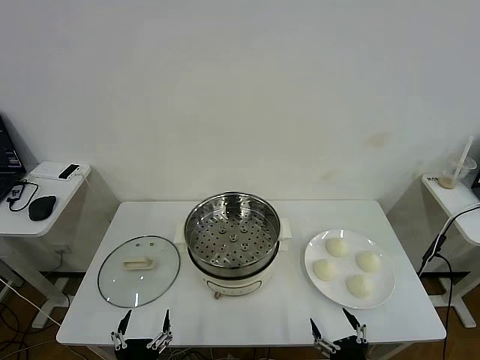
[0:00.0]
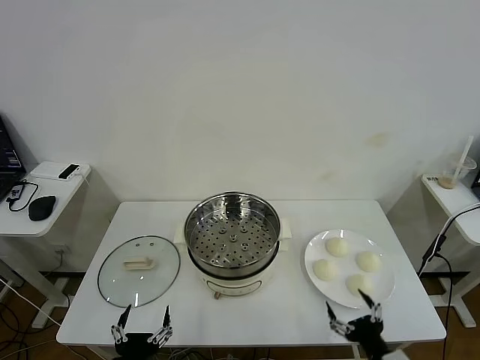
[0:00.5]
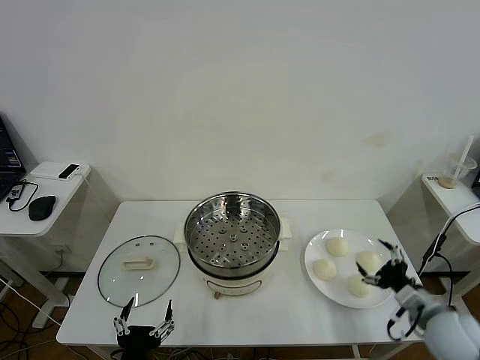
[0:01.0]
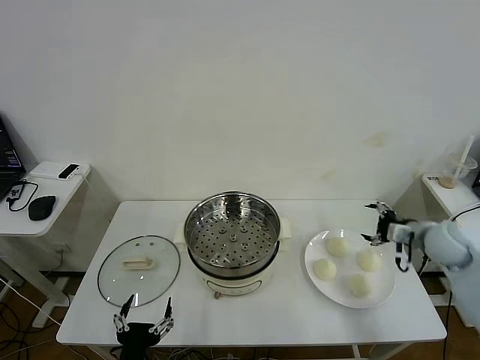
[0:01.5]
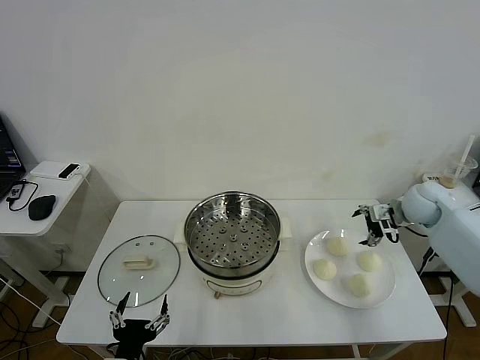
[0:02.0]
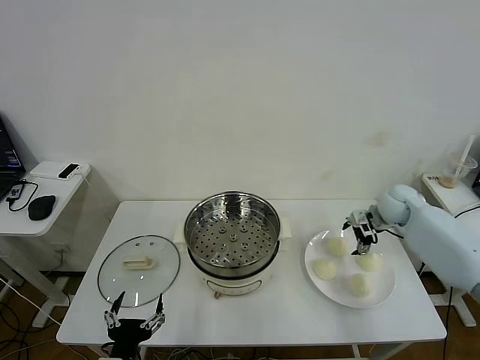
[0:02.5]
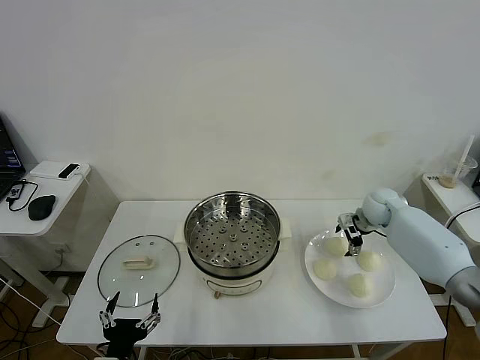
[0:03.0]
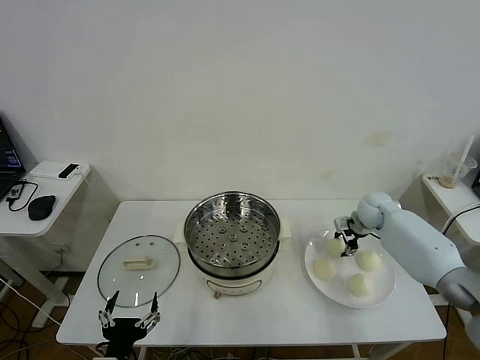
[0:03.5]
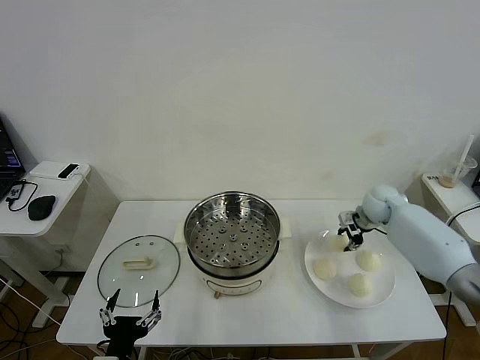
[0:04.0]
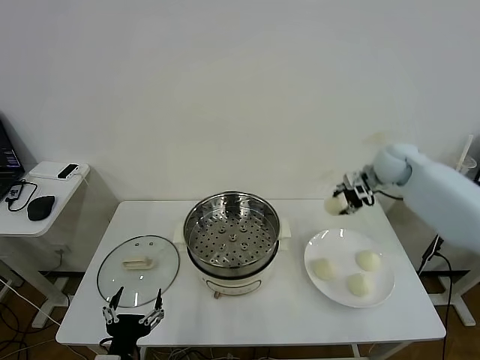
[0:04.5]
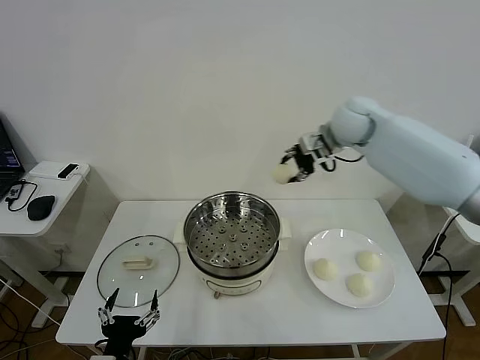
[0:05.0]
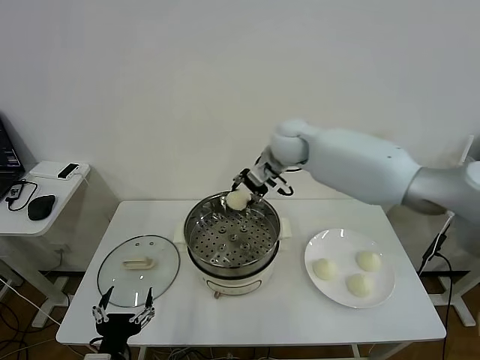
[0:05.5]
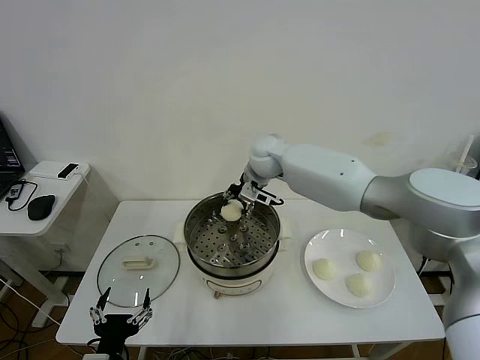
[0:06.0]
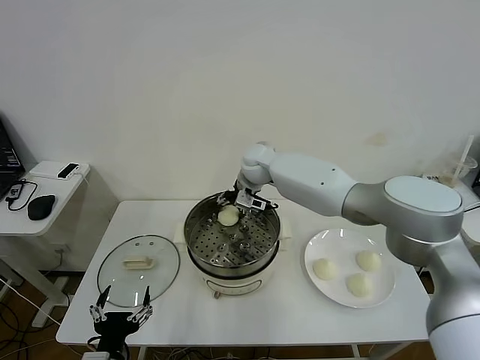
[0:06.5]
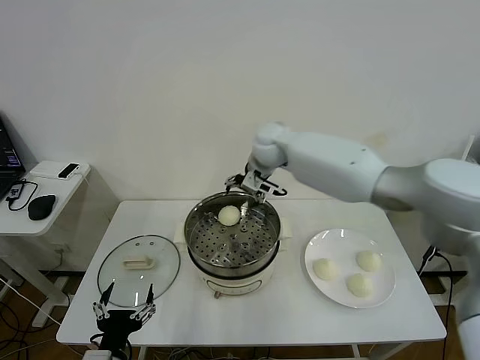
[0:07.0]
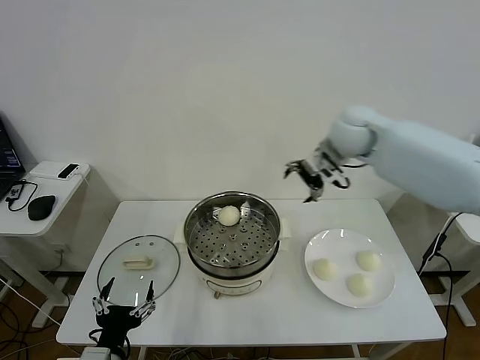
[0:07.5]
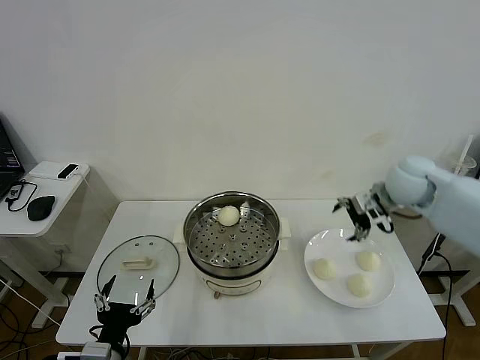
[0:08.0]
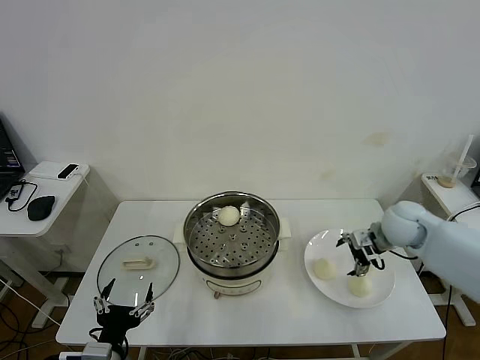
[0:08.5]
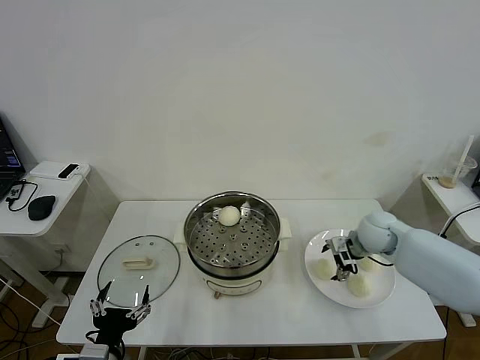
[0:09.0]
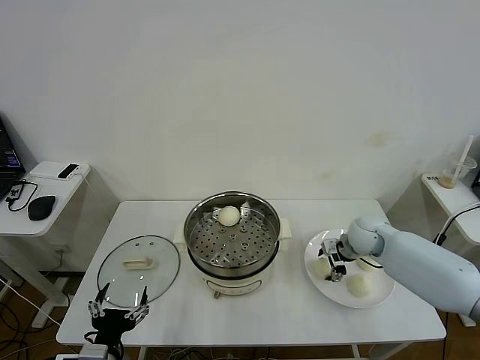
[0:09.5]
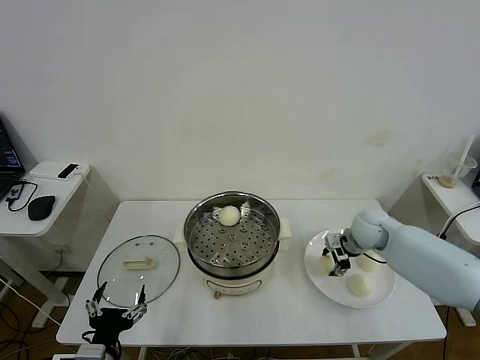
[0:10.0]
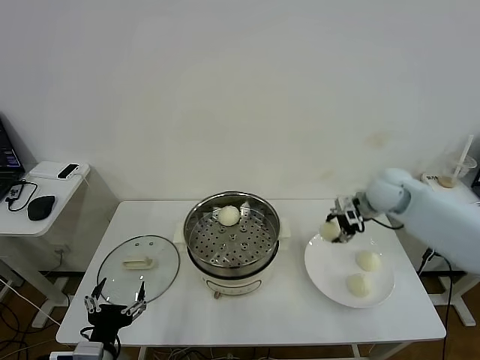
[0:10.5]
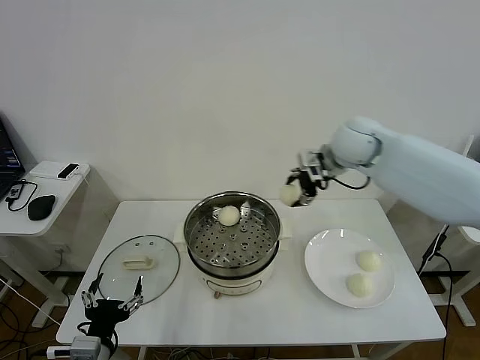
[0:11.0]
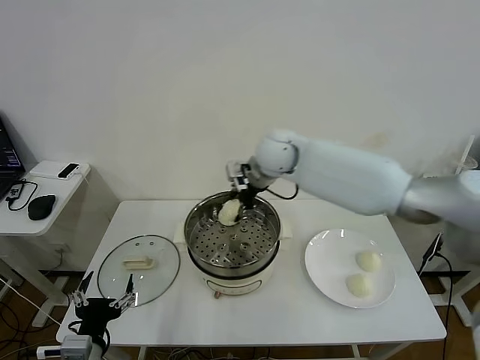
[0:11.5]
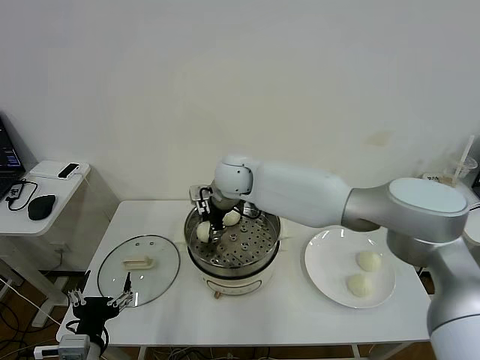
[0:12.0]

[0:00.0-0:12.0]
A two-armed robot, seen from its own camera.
Task of the whole recording: take steamed baozi put them in steamer then cover it.
Step, 0.0 to 3.5 s: Grasp the baozi in the plate with right gripper.
Step, 4.0 to 6.5 s: Place the baozi on the steamer with right gripper.
Step, 7.0 to 9.5 s: Grasp the baozi in the plate with right gripper.
2.0 to 4.0 s: The right gripper goes downward and returns, some 10 cm each way, and closes up.
4.0 to 6.0 s: The right gripper shifts roughly 30 cm to the left.
6.0 to 8.0 s: The right gripper travels to the right and backward by some 30 cm, and opens.
8.0 to 10.0 s: The right gripper travels downward by some 10 cm, and closes.
10.0 to 12.0 s: The right gripper travels to the left by about 35 cm.

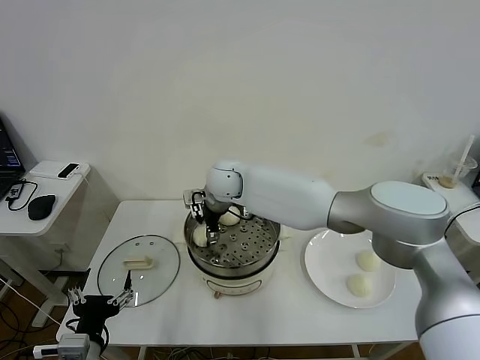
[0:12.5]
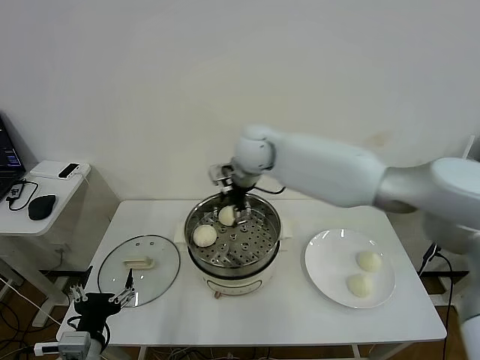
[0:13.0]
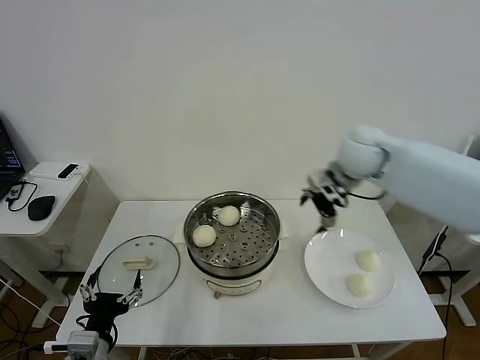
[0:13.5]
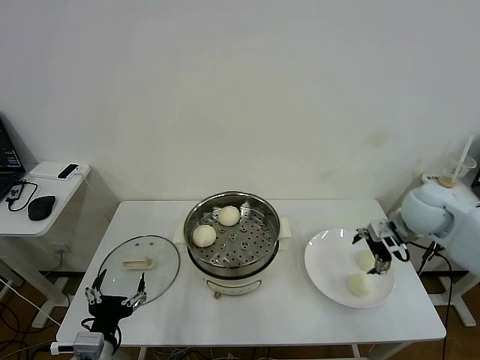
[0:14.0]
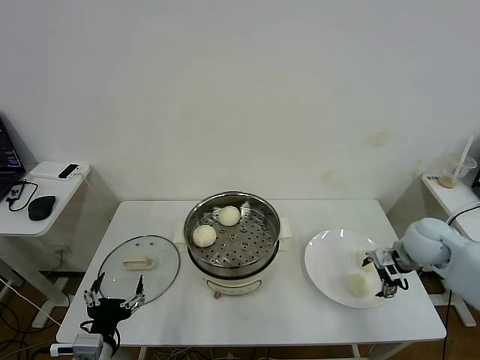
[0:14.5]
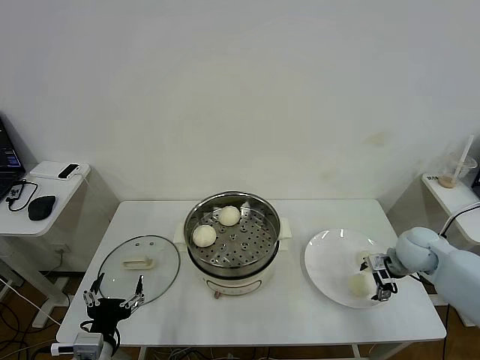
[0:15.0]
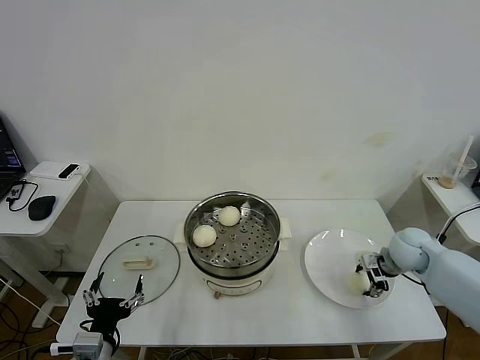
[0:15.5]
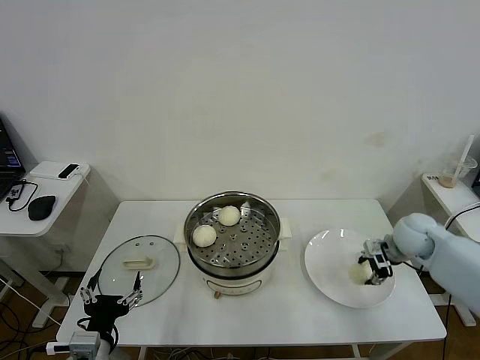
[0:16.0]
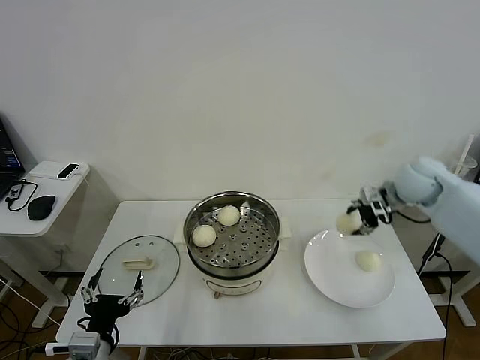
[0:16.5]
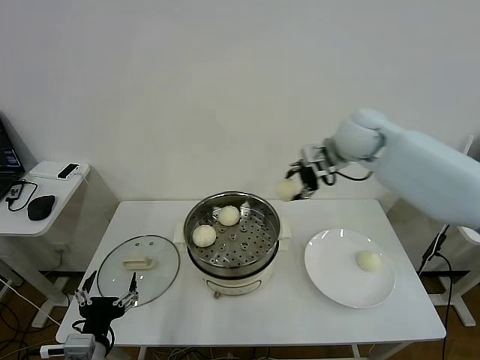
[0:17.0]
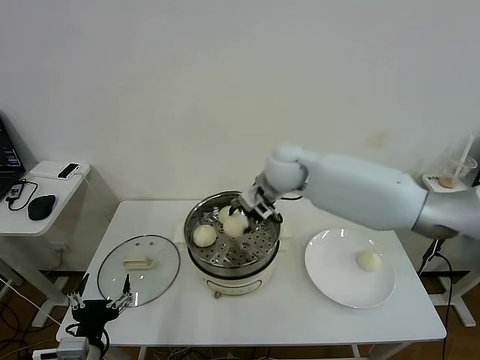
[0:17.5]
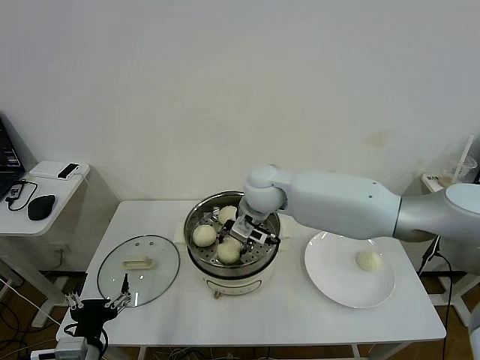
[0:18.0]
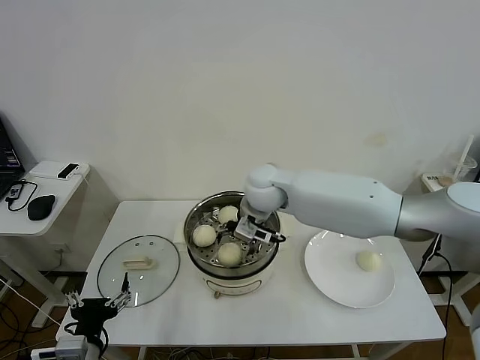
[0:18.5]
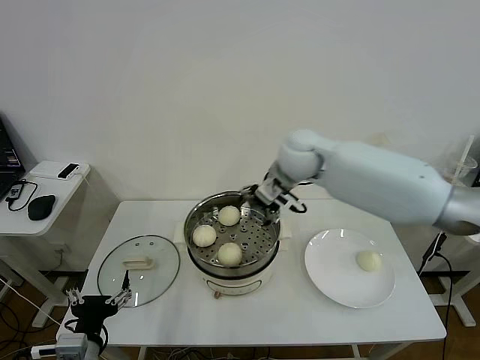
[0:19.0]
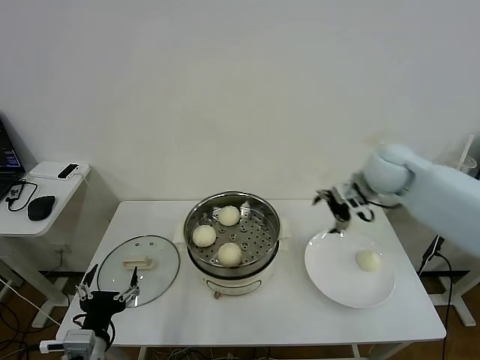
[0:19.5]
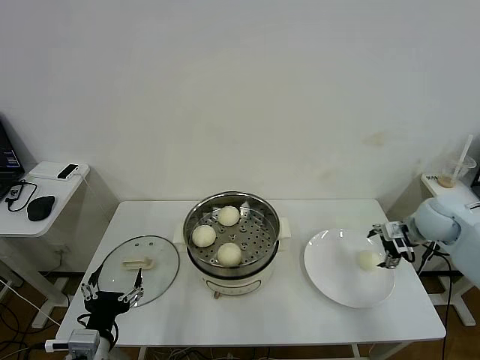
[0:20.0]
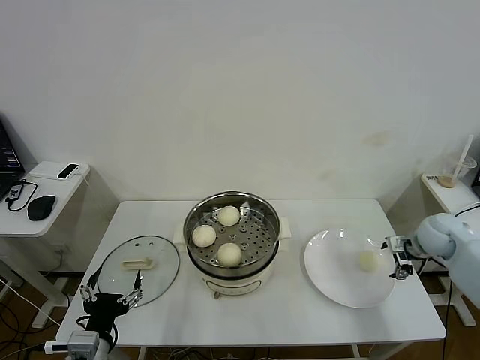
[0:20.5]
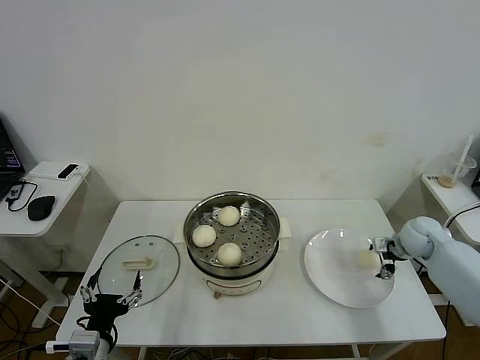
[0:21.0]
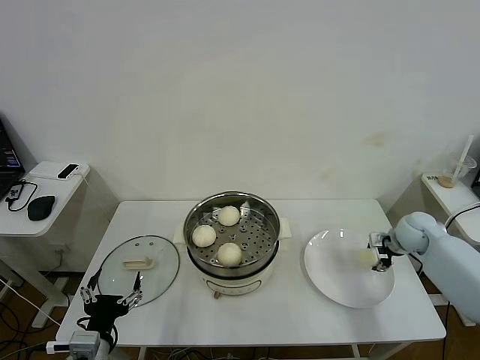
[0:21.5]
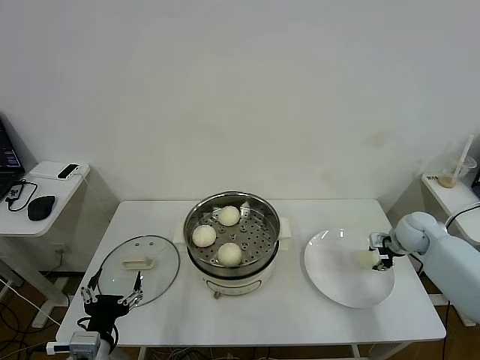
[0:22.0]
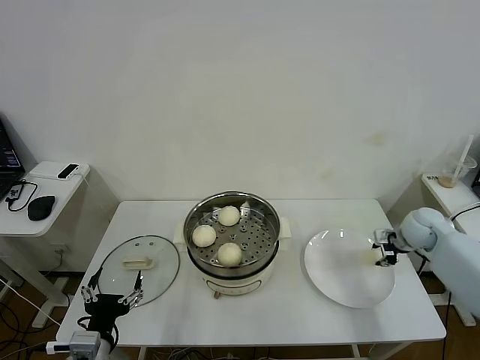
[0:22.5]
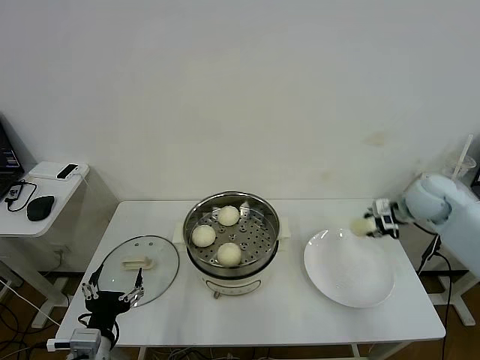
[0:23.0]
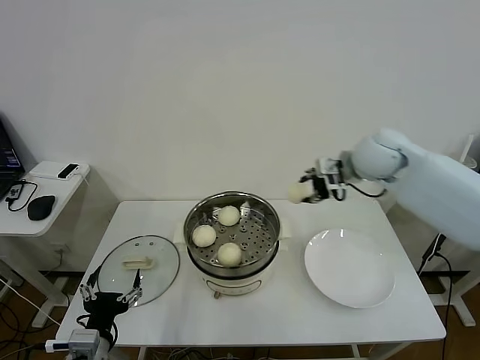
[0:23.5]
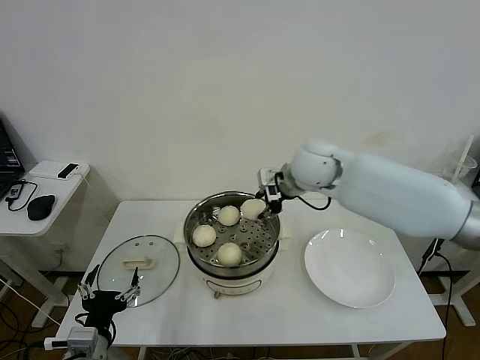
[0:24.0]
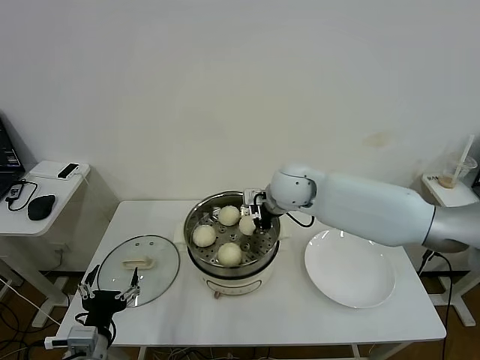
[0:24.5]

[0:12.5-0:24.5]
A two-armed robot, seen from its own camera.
Task of the whole recording: take steamed baozi put them in steamer then cover it.
Step, 13.0 to 15.5 s: Grasp the baozi in the plate with right gripper.
Step, 16.0 to 18.5 s: Place the baozi on the steamer with right gripper.
Step, 19.0 to 22.0 s: Grasp the baozi in the plate with right gripper.
12.5 to 14.5 s: The right gripper is displaced to the right by roughly 40 cm.
14.5 to 16.5 s: The right gripper heads upward and forward, covering approximately 15 cm, and closes up.
16.5 to 18.5 s: The right gripper moves to the left, some 30 cm, and opens up.
18.5 to 20.5 s: The right gripper travels to the right by some 40 cm.
20.5 to 22.5 s: The right gripper closes.
22.5 to 24.5 s: The right gripper moves to the left, some 35 cm.

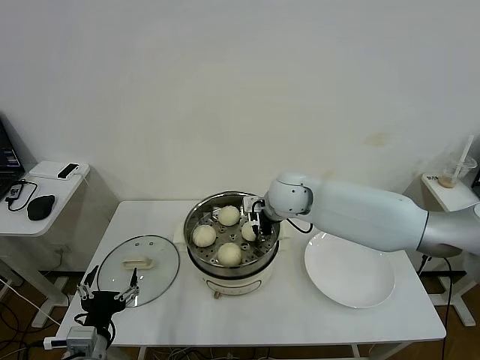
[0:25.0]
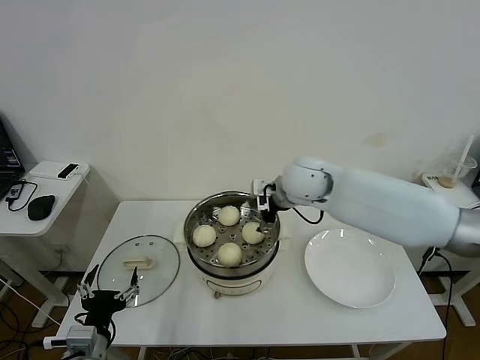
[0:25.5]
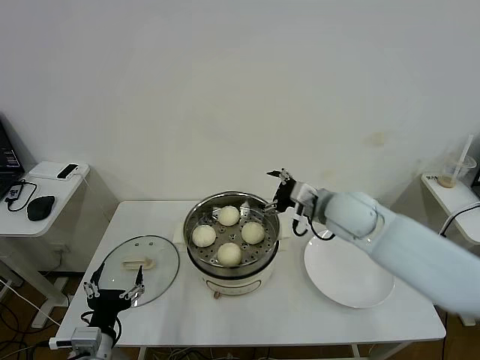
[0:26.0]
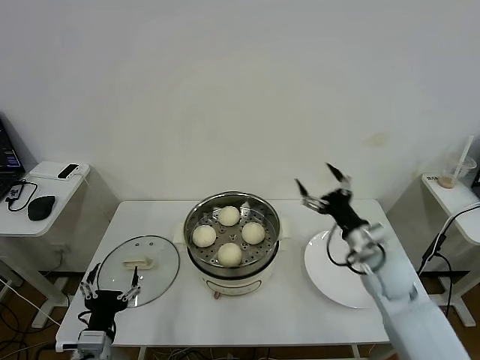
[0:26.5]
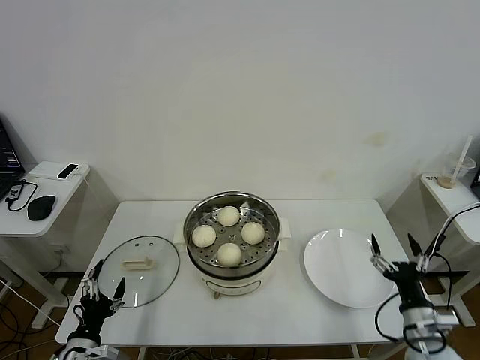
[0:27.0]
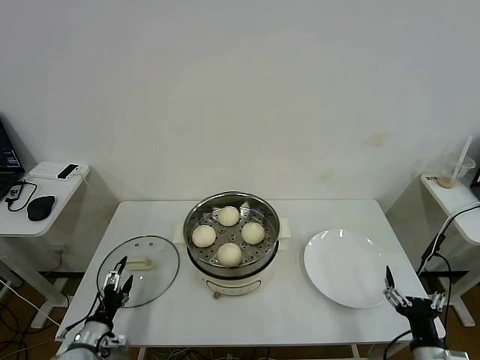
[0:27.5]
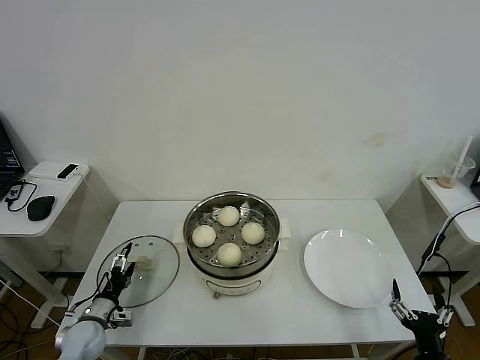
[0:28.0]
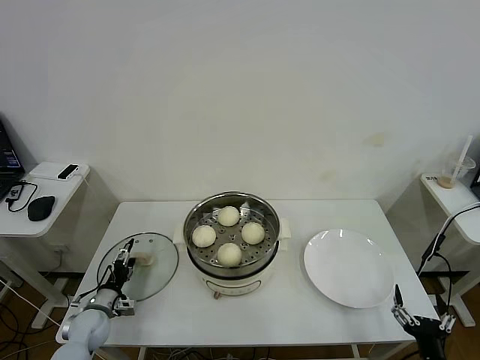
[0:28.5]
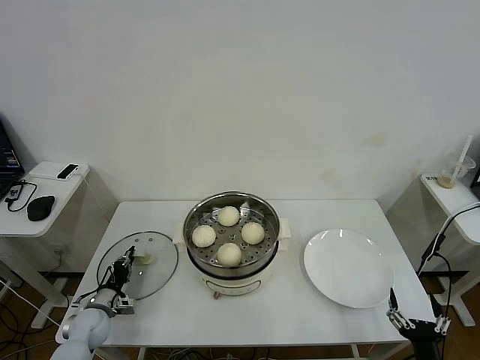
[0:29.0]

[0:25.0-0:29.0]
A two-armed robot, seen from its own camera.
Task of the whole recording: take steamed baozi put them in steamer then cover it.
25.0 to 27.0 s: The left gripper is displaced downward and to the left by about 10 cm. The right gripper heads backward, to the right and downward, covering approximately 40 cm, and opens its fingers.
27.0 to 29.0 s: The left gripper heads forward and downward, covering some 20 cm, and closes its fingers; the right gripper shifts some 10 cm backward.
